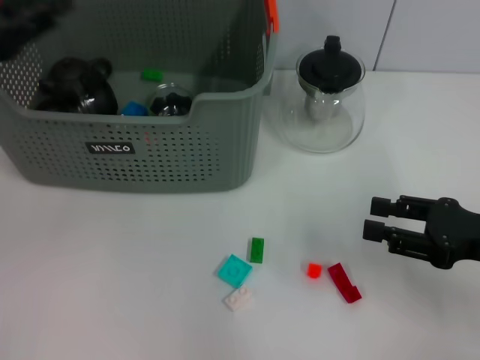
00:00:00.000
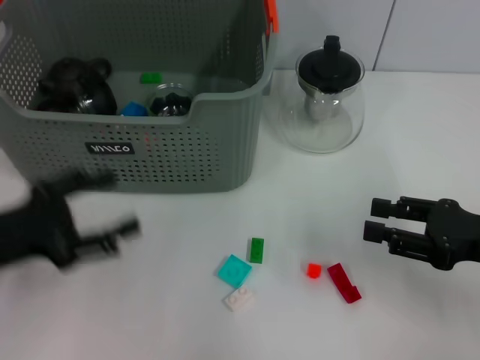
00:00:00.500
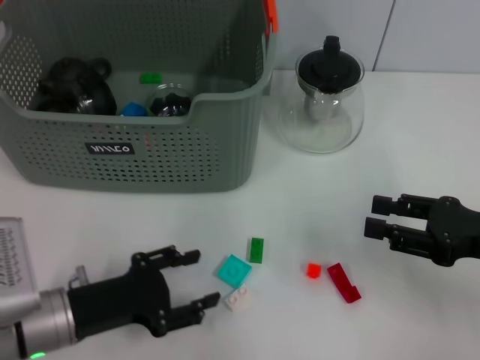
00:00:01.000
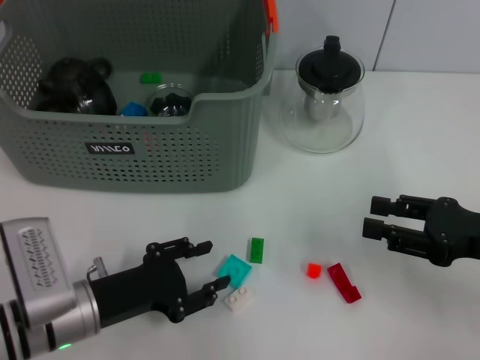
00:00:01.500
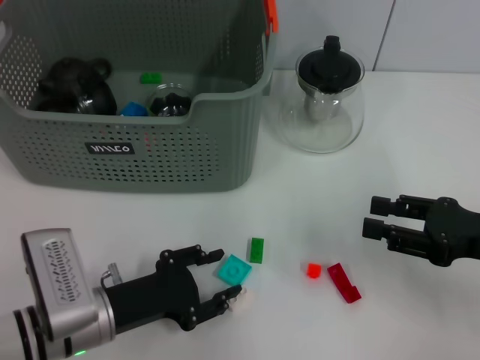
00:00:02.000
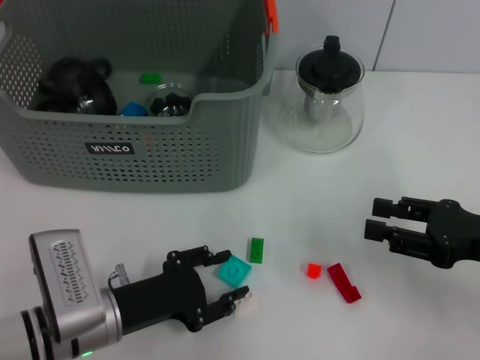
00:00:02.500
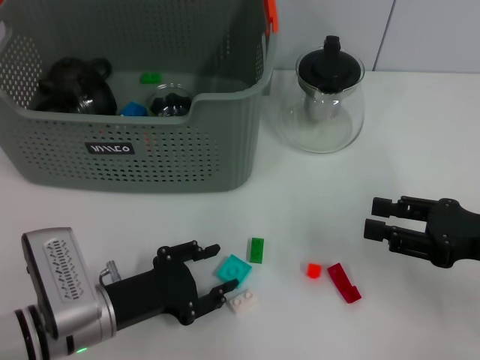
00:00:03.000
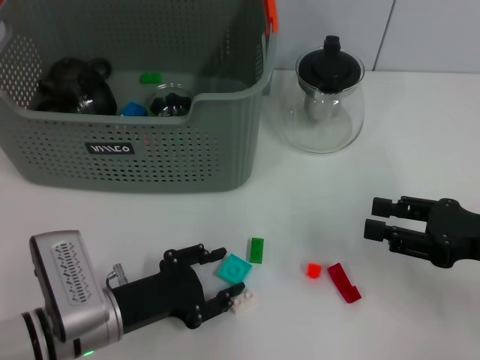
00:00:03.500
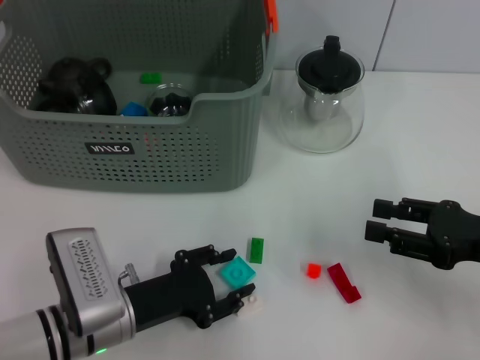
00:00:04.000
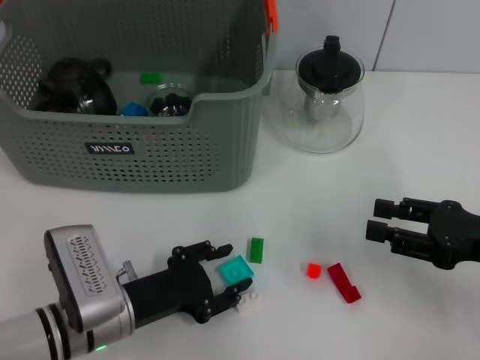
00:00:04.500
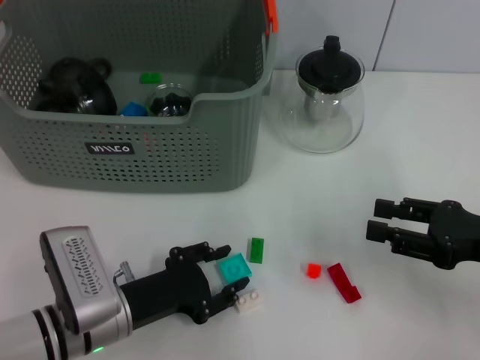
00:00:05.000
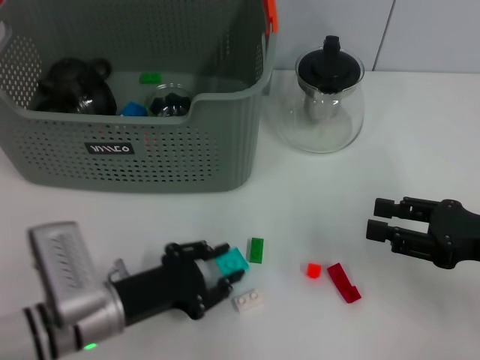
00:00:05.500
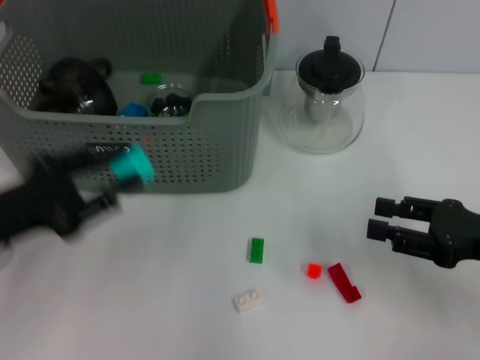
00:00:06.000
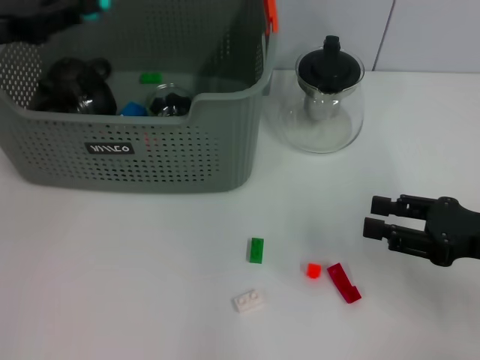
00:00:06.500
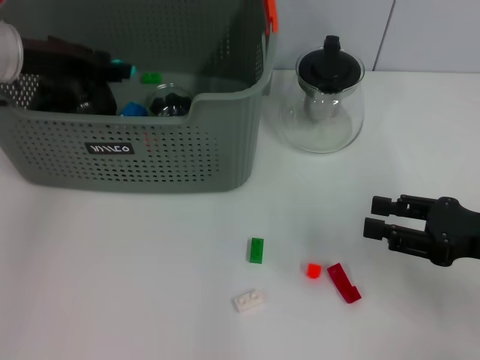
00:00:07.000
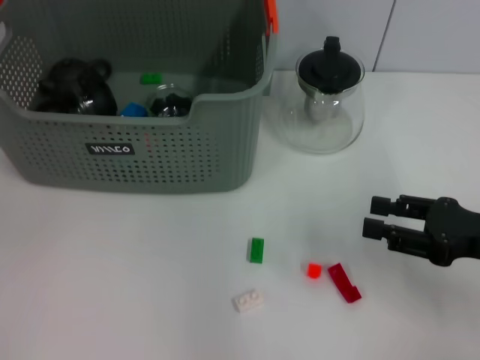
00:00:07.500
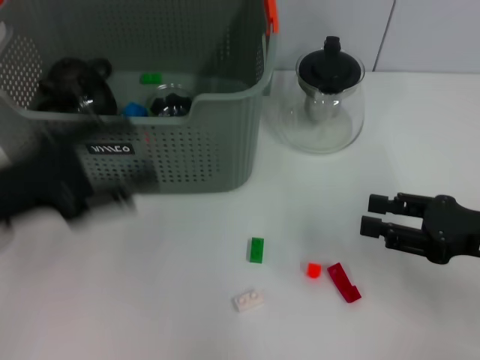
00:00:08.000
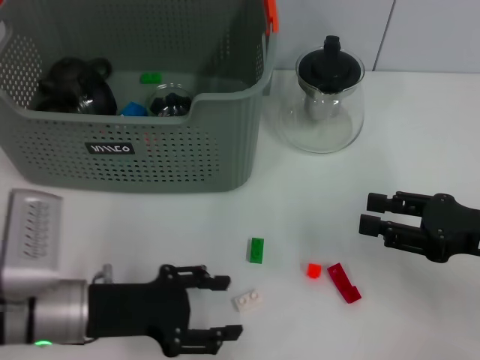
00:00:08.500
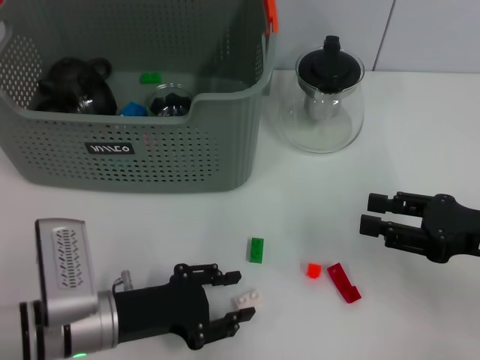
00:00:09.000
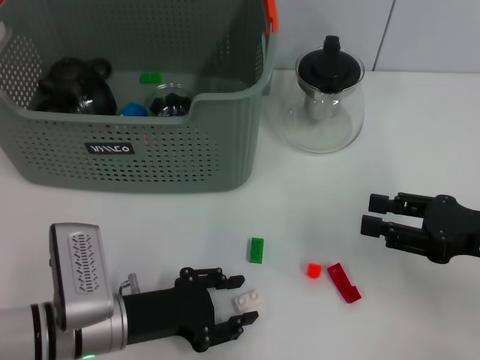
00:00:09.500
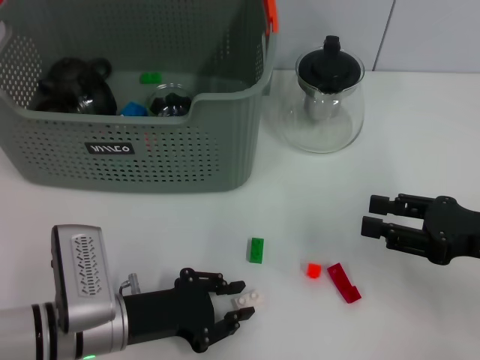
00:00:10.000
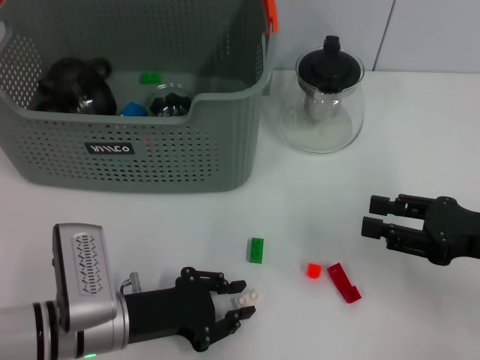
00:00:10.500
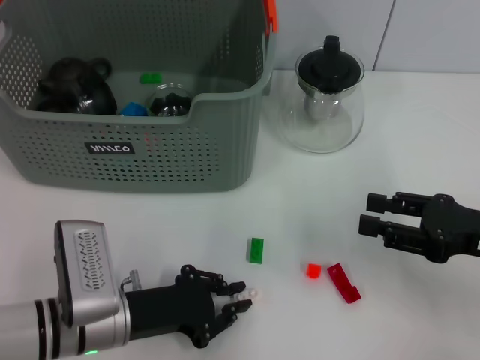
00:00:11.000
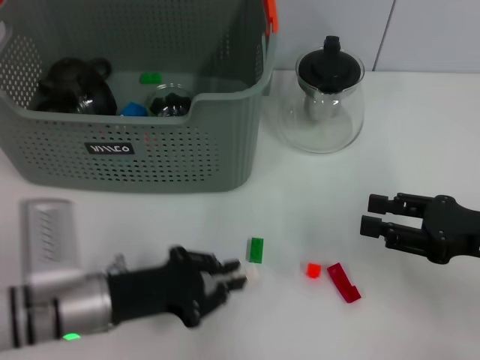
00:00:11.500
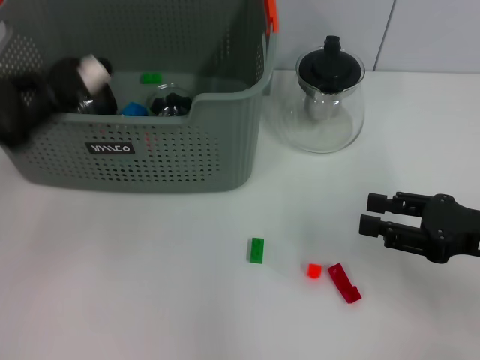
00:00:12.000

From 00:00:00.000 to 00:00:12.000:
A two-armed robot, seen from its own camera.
Task of the whole recording: pick up the teacup on the table and place it into the storage bin, pick up the block on the table and place it into the storage bin.
Step, from 00:00:00.500 to 00:00:05.000: Grasp the light blue block with left gripper.
Step, from 00:00:06.000 to 00:00:07.000: Place the light blue block in the storage box with left gripper.
Step, from 00:00:07.500 to 00:00:11.000: Grasp the white block with left gripper.
From 00:00:00.000 to 00:00:02.000: The left gripper travels downward, to the right and backward by some 20 cm.
From 00:00:02.000 to 00:00:04.000: The grippers make only small movements.
From 00:00:04.000 to 00:00:06.000: The left gripper is displaced to the left and upward by some 15 cm.
From 00:00:06.000 to 00:00:08.000: The left gripper moves some 15 cm forward and comes back, and opens.
From 00:00:08.000 to 00:00:10.000: The left gripper shifts some 15 cm downward and to the right.
From 00:00:10.000 to 00:00:12.000: The left gripper travels upward and to the left by about 20 cm, and closes.

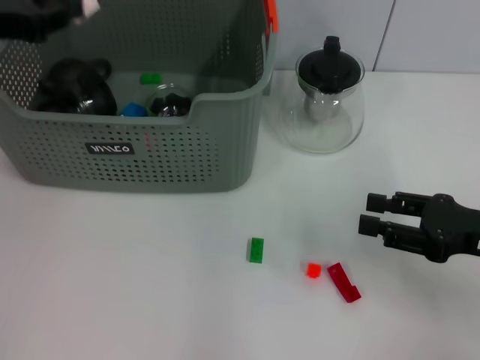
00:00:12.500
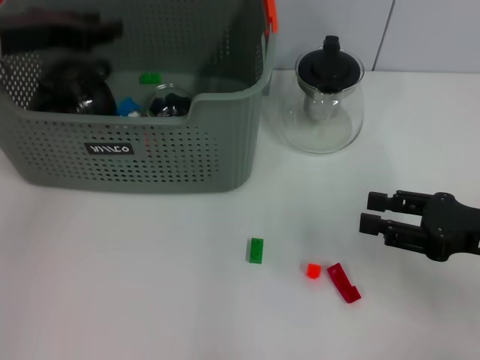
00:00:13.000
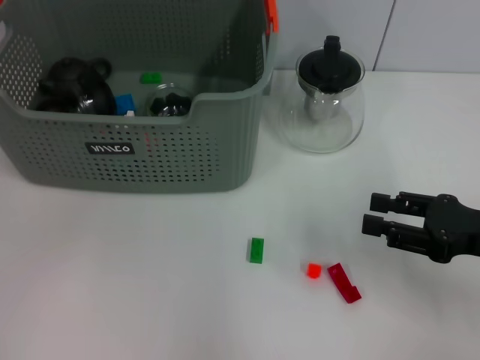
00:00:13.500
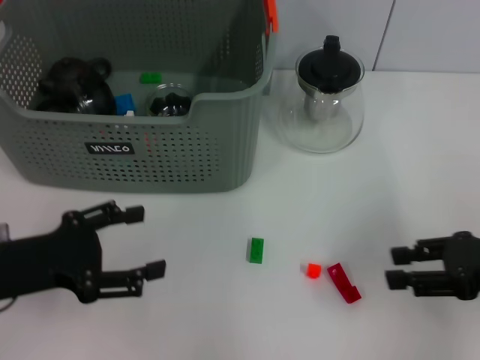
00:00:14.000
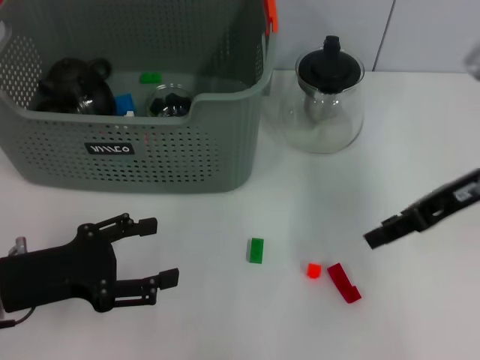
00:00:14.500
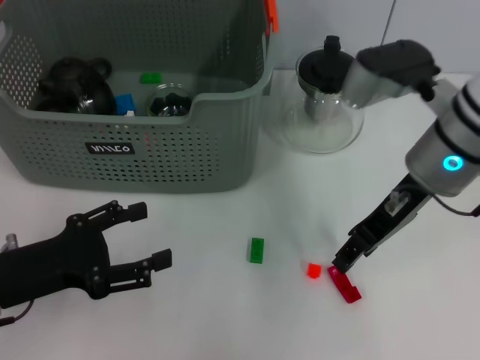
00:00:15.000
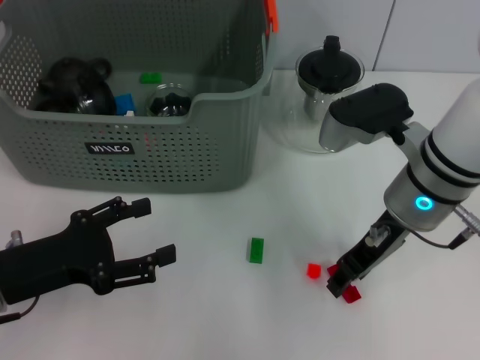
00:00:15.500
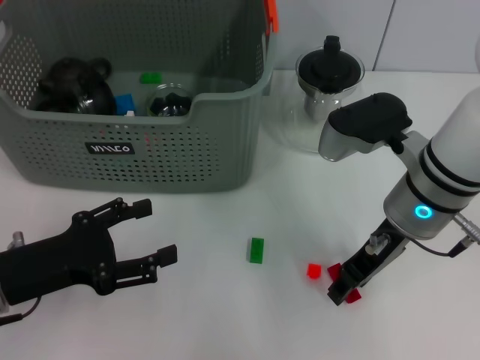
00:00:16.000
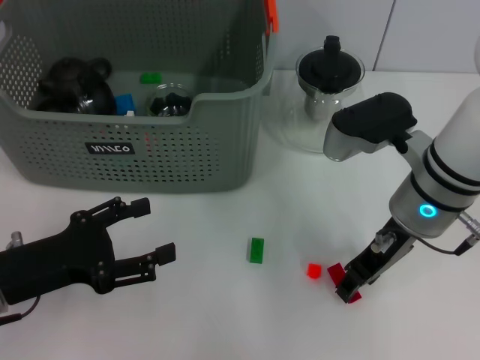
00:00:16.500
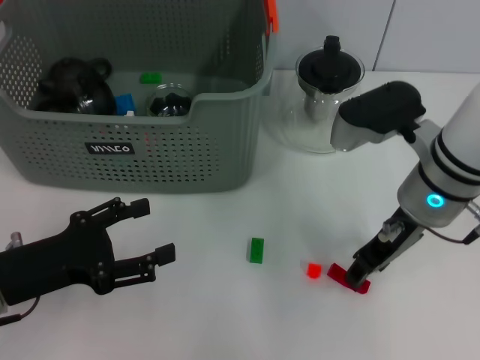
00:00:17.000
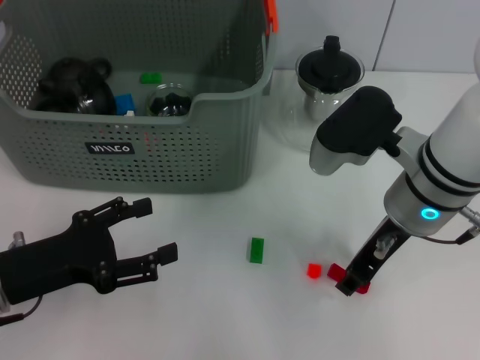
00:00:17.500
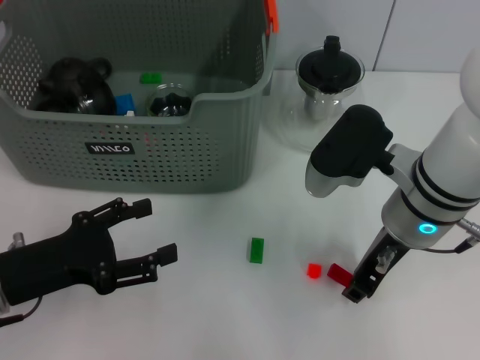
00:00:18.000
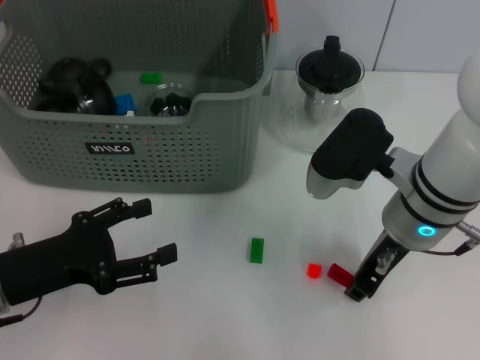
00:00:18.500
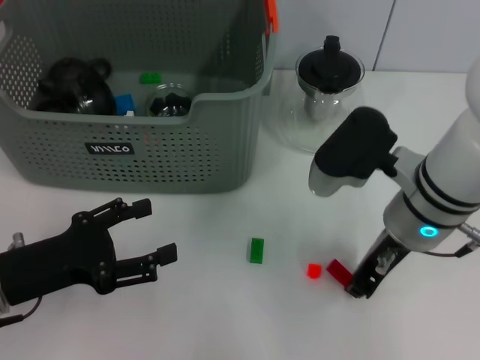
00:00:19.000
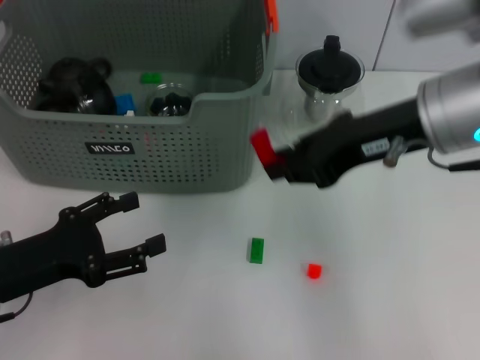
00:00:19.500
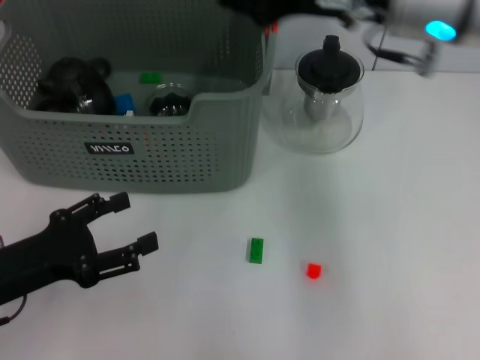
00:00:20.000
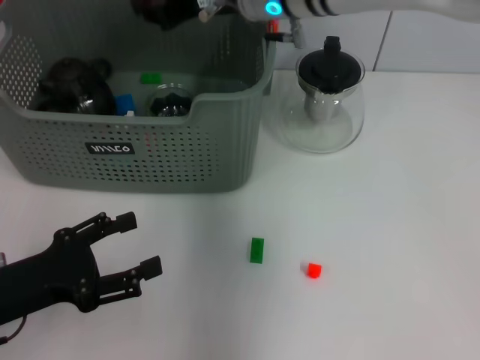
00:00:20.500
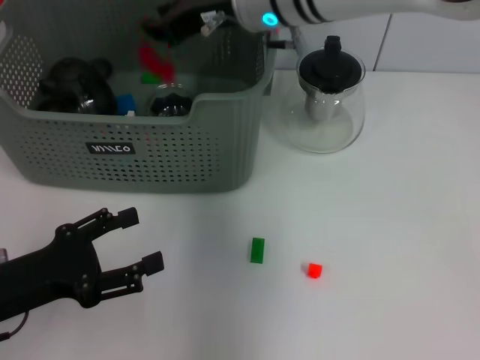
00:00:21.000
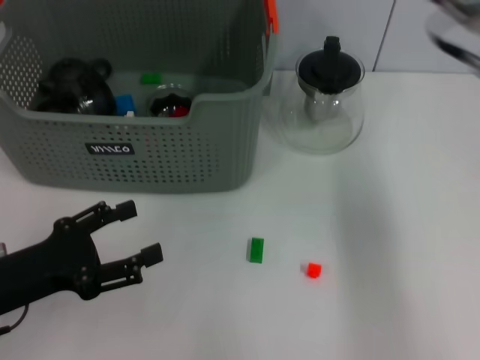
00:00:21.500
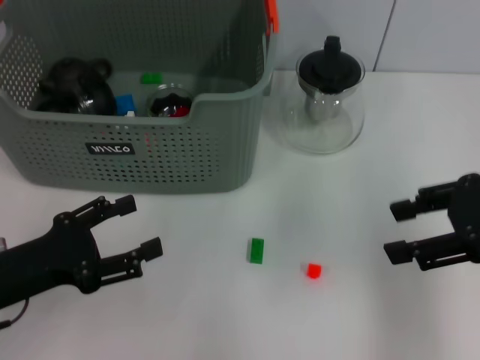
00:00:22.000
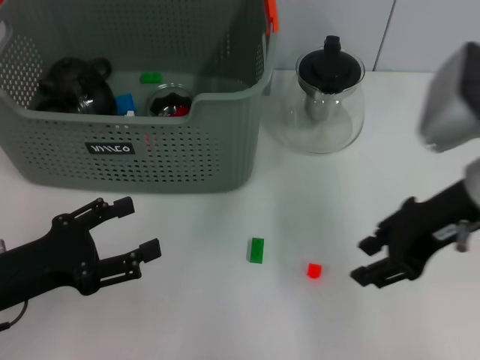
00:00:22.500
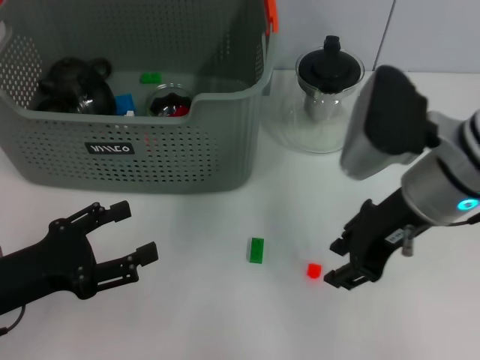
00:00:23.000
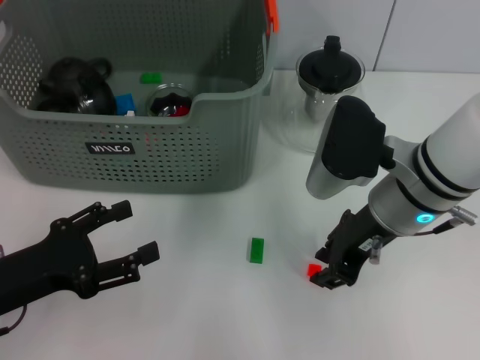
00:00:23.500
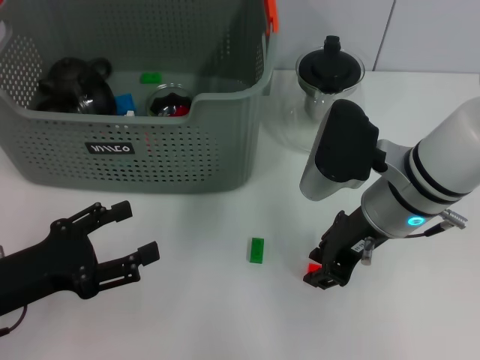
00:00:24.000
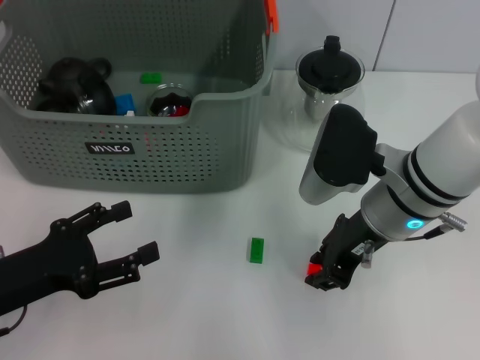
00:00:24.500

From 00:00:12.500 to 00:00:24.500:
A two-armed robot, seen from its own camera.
Task of the whole recording: pick up the teacup on the table and place it into the storage bin, pick up the block on the table and place it into the storage bin.
Step, from 00:00:13.500 to 00:00:19.000: Grasp the red block with right gripper.
Step, from 00:00:19.500 to 00:00:21.500: Place the red block in the storage box with right gripper.
From 00:00:12.500 to 00:00:14.500: The left gripper shifts some 20 cm backward and downward, and opens its fingers. Meanwhile the right gripper is displaced upward and forward by about 10 cm.
From 00:00:14.500 to 00:00:16.500: The right gripper is displaced to the left and downward by about 10 cm.
From 00:00:16.500 to 00:00:18.500: The grippers move only a little.
From 00:00:18.500 to 00:00:20.500: The right gripper moves forward, to the left and upward, approximately 20 cm.
From 00:00:20.500 to 00:00:22.500: The right gripper is displaced to the right and backward by some 20 cm, and opens up.
From 00:00:22.500 to 00:00:24.500: The right gripper is displaced downward and to the left by some 10 cm.

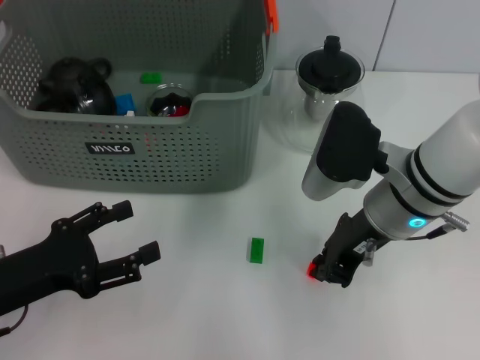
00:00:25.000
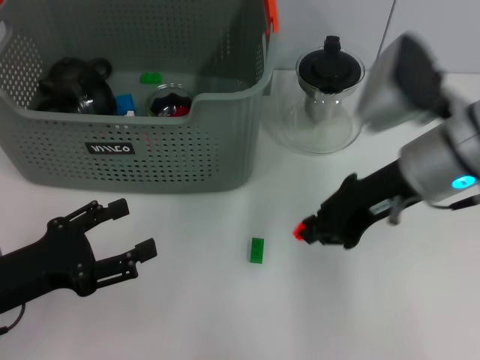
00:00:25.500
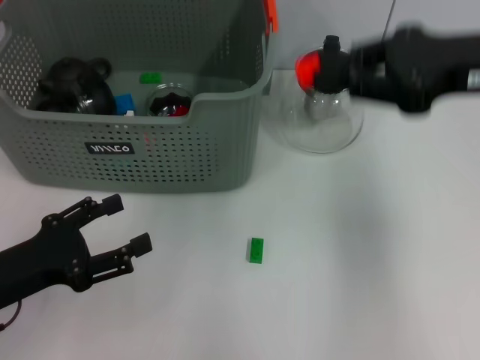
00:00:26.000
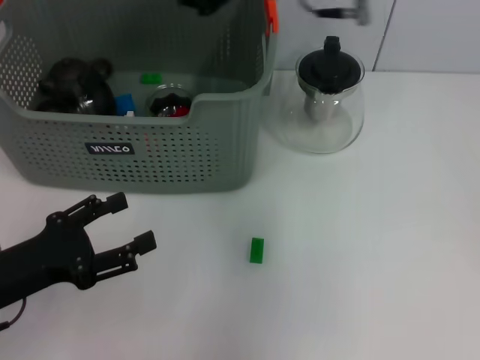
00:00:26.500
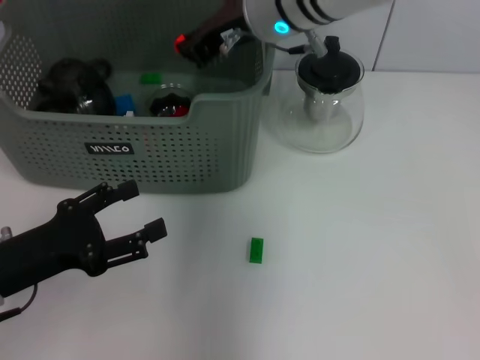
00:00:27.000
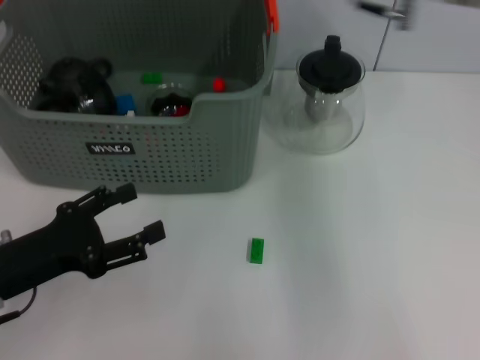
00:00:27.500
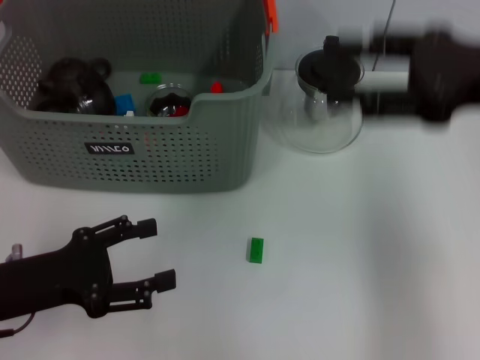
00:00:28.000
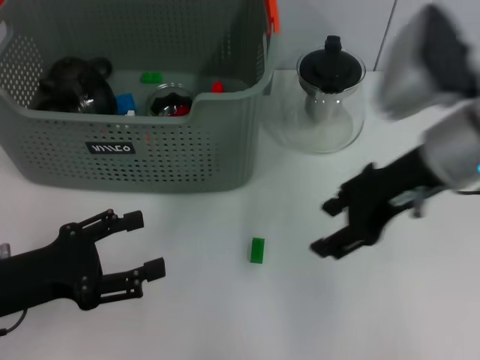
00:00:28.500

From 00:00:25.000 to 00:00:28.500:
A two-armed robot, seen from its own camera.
Task of the whole recording: pick up the teacup on the table and place it into the storage bin, pick up the block on the table and place it into the storage bin.
Step, from 00:00:25.500 to 00:00:27.000: Place the orange block in the storage box with right gripper.
From 00:00:25.000 to 00:00:27.000: The right gripper travels forward, to the left and upward by approximately 20 cm.
From 00:00:27.000 to 00:00:28.500: The right gripper is displaced to the right and backward by roughly 20 cm, and opens its fingers.
